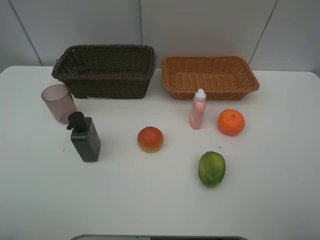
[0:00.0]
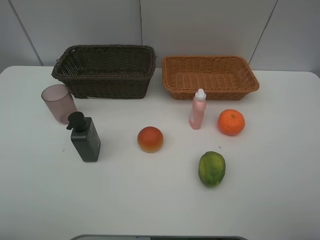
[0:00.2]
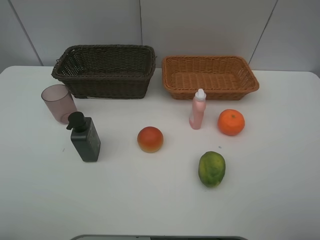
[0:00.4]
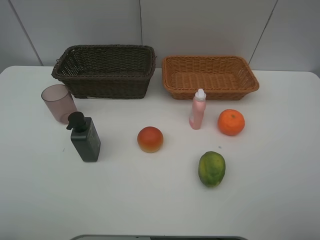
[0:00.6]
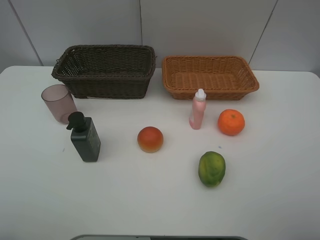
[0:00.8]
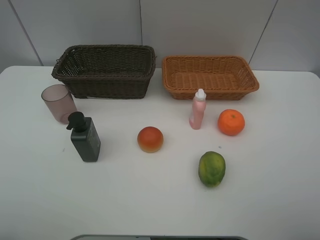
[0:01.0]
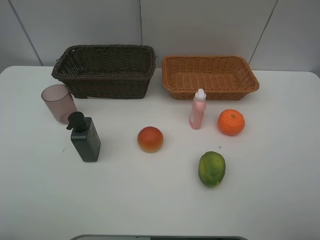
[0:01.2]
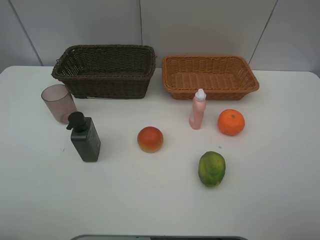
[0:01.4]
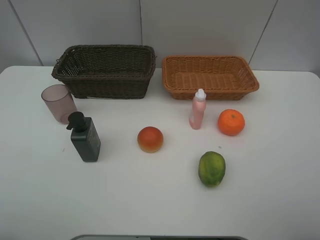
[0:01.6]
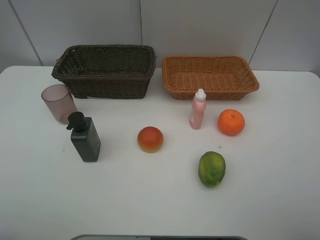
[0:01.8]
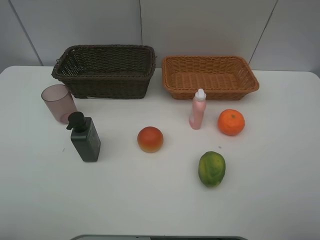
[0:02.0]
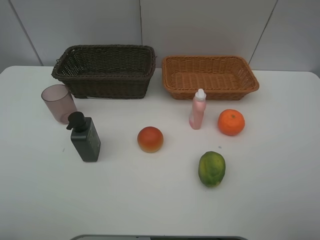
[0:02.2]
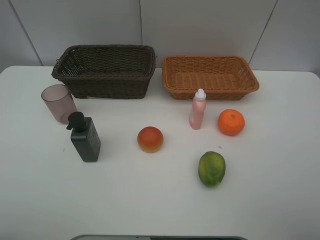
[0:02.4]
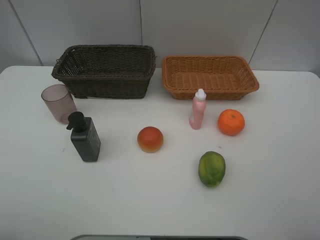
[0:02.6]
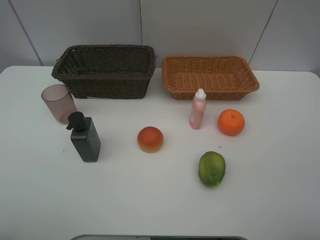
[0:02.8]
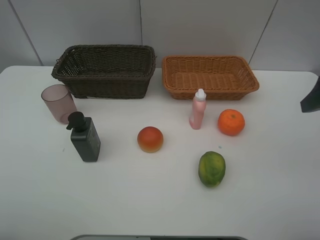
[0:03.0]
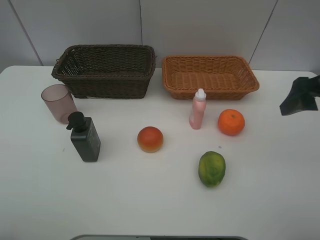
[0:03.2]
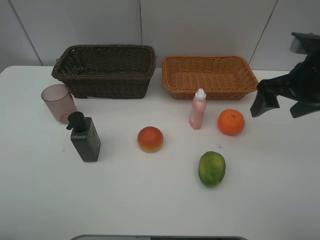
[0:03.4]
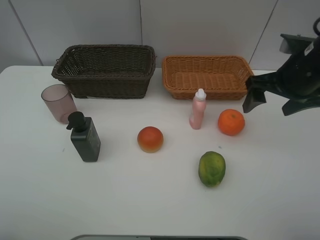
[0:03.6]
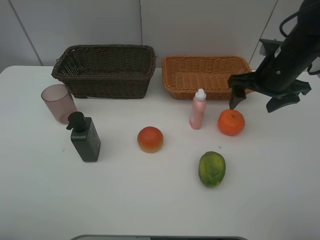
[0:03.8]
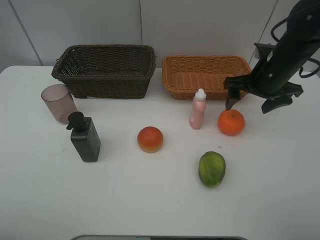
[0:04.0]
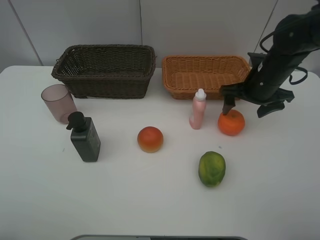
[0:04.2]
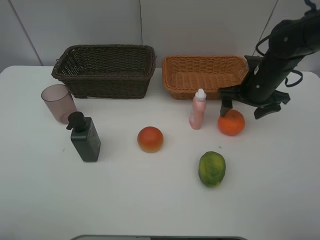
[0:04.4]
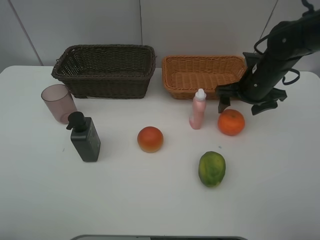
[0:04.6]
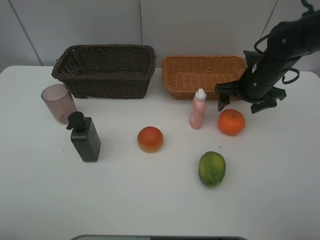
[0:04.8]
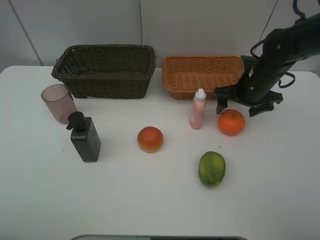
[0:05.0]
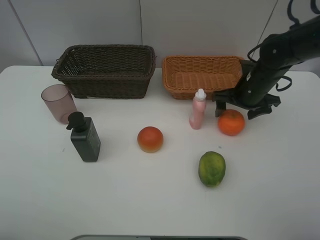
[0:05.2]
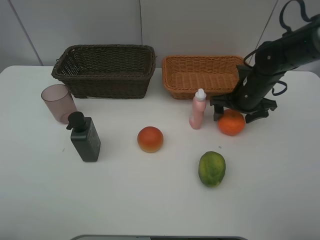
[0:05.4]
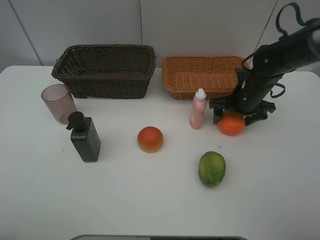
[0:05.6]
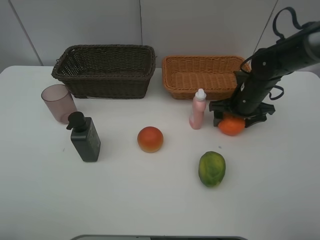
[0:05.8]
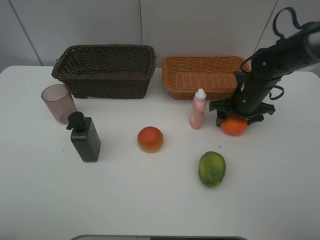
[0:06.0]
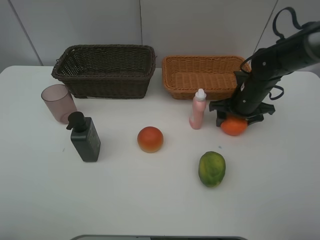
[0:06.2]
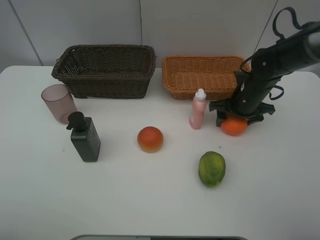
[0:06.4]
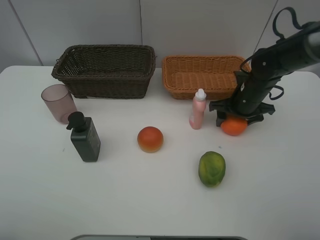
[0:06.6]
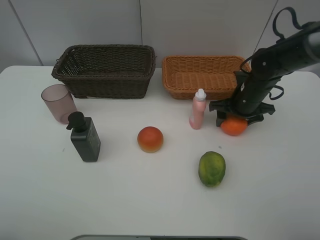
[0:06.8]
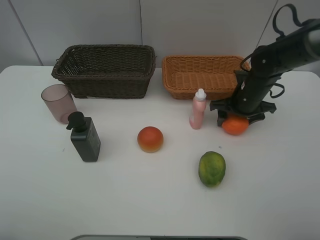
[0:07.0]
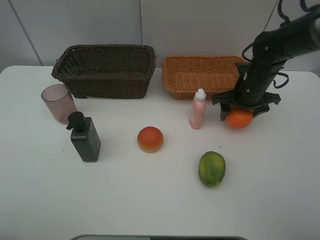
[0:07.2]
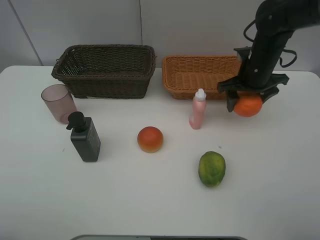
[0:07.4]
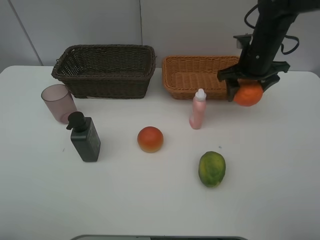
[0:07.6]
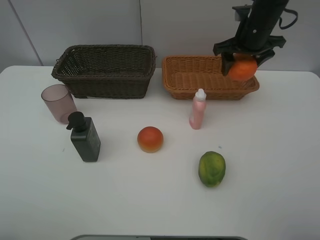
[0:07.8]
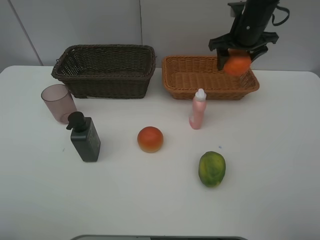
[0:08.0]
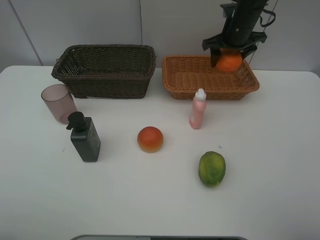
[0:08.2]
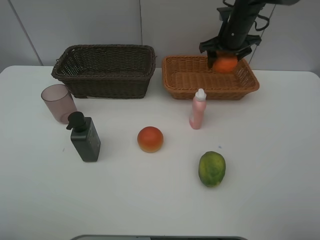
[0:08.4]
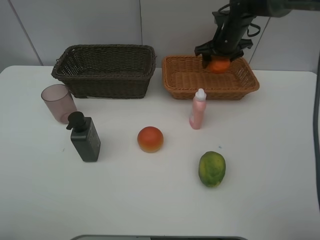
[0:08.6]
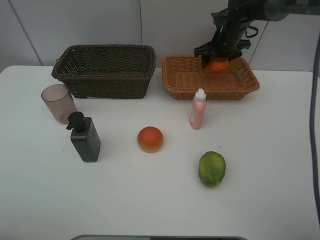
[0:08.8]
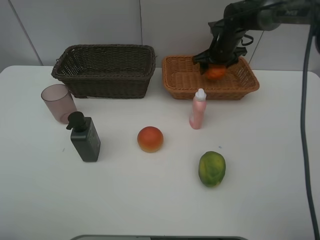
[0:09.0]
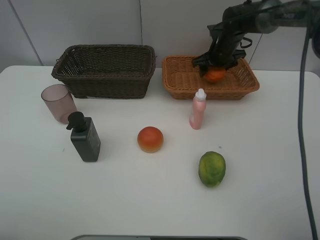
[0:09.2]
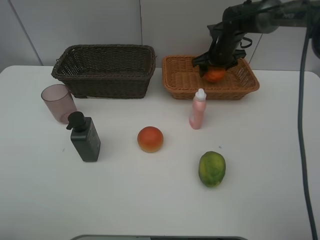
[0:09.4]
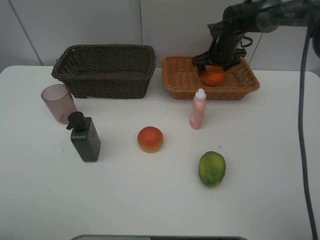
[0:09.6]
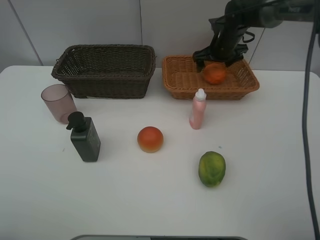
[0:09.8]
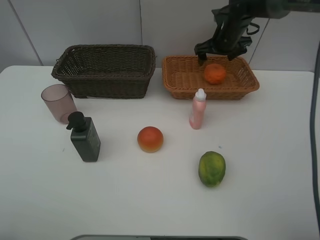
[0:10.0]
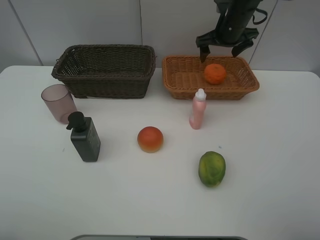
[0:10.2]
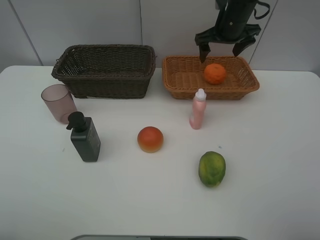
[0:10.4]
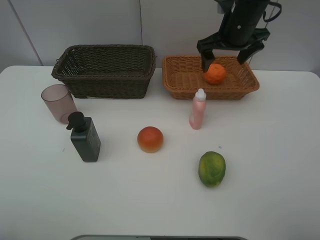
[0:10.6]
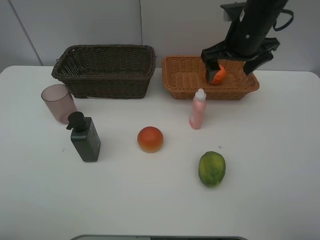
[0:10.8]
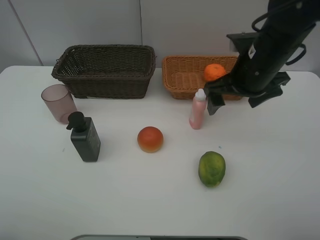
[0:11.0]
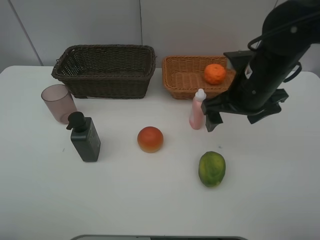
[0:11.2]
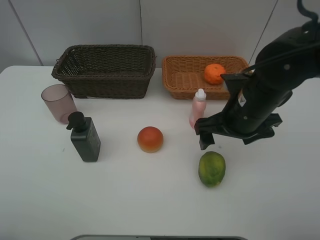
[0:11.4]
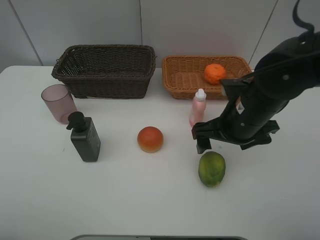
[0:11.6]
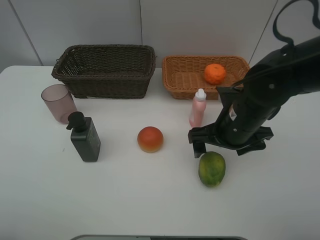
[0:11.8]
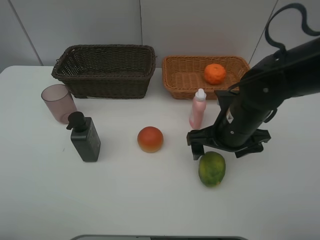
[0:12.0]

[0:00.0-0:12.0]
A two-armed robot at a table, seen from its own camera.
Task of the whole recording: place multiple objects separately in different baskets.
0:00.0 to 0:01.6: Both grippers stay about where they are.
0:03.0 to 0:04.4: The right gripper goes roughly 20 cm forward, downward and to the left.
0:04.4 to 0:06.0: The right gripper is displaced downward by some 5 cm.
0:06.0 to 0:07.6: The right gripper goes some 10 cm upward.
0:07.6 to 0:09.0: The right gripper shifts approximately 15 cm forward and downward.
0:09.0 to 0:10.4: The right gripper heads upward, covering roughly 10 cm, and opens its fingers.
0:10.4 to 0:12.0: The right gripper moves backward and downward, some 25 cm.

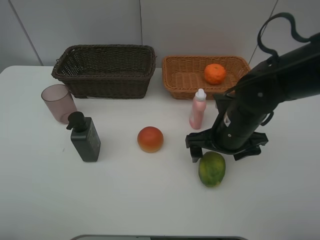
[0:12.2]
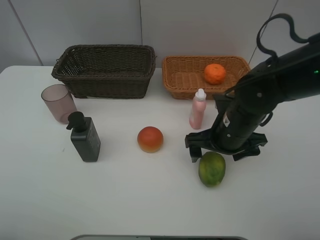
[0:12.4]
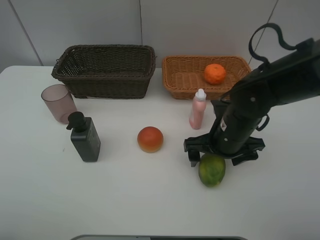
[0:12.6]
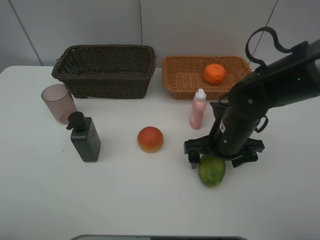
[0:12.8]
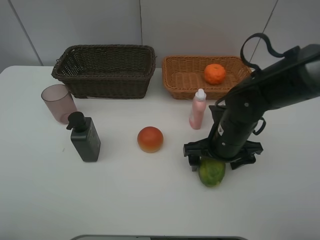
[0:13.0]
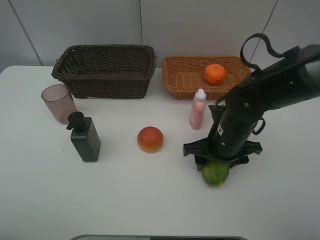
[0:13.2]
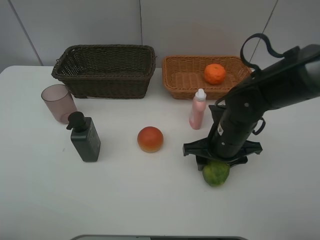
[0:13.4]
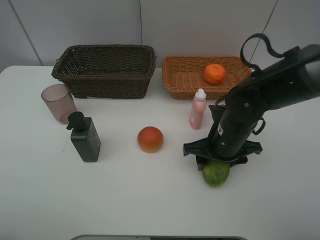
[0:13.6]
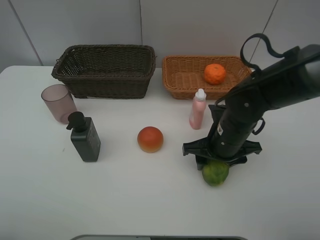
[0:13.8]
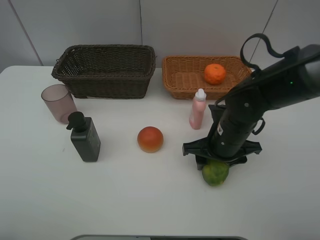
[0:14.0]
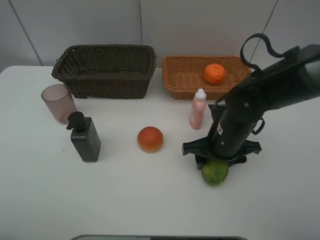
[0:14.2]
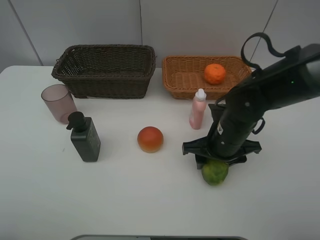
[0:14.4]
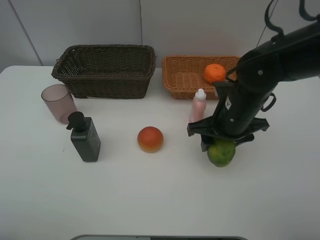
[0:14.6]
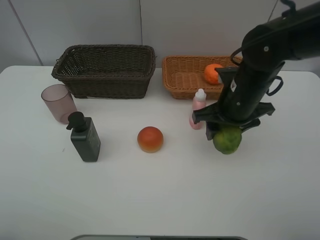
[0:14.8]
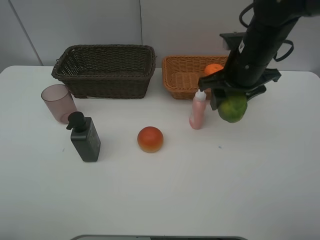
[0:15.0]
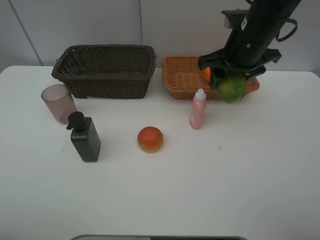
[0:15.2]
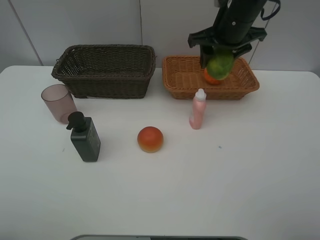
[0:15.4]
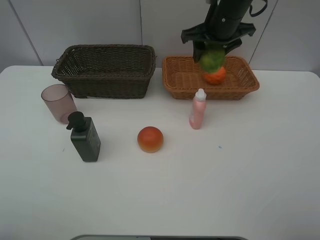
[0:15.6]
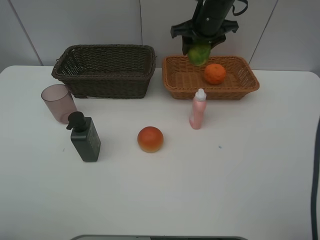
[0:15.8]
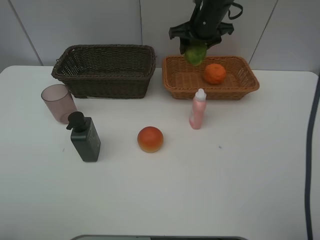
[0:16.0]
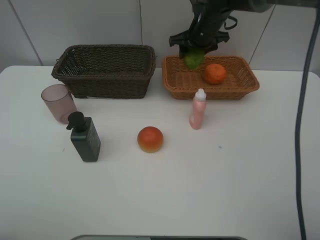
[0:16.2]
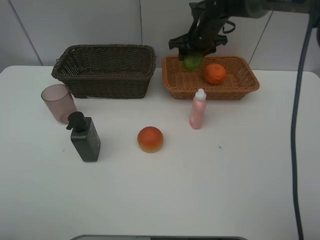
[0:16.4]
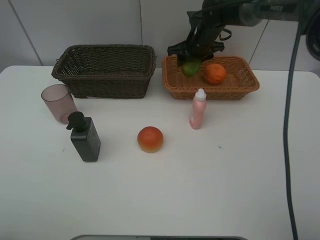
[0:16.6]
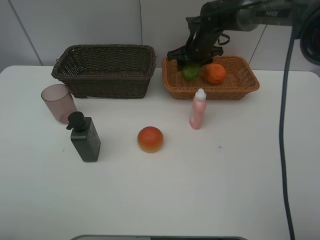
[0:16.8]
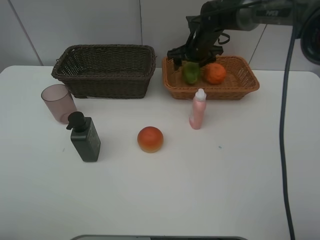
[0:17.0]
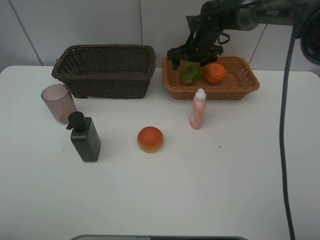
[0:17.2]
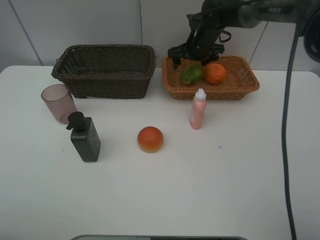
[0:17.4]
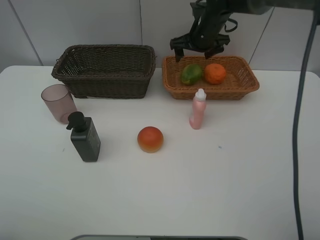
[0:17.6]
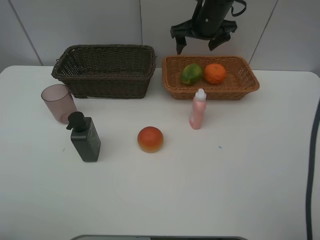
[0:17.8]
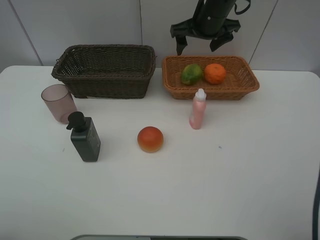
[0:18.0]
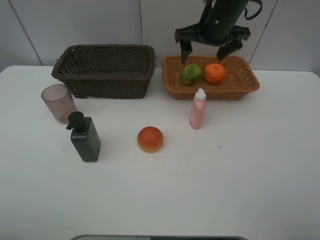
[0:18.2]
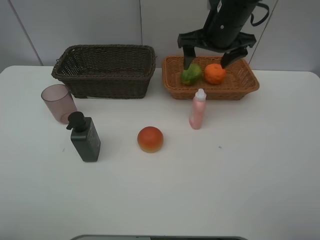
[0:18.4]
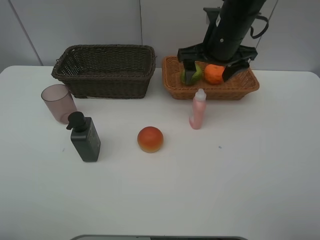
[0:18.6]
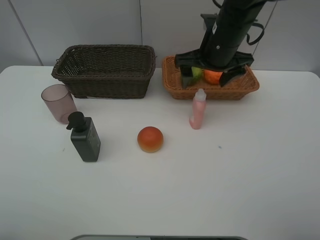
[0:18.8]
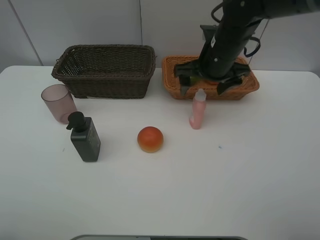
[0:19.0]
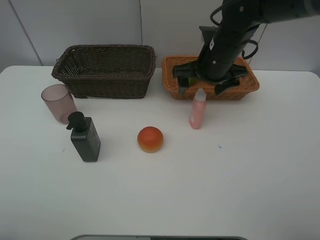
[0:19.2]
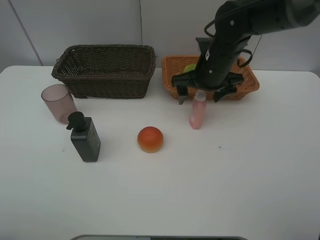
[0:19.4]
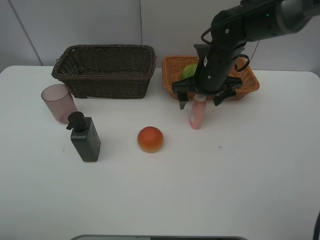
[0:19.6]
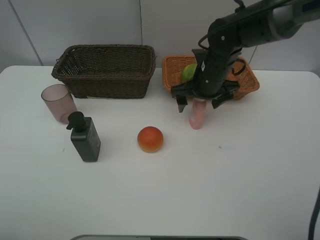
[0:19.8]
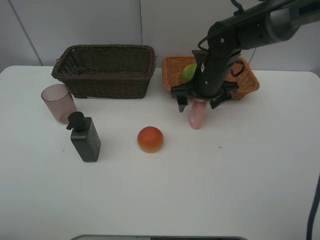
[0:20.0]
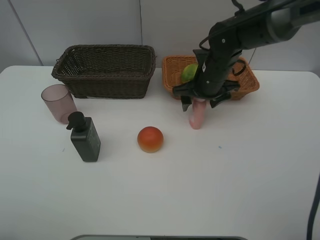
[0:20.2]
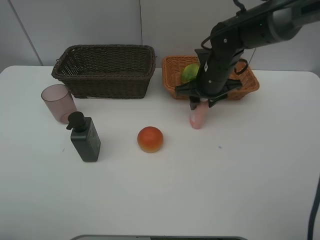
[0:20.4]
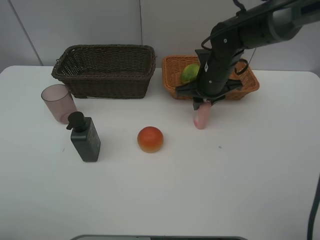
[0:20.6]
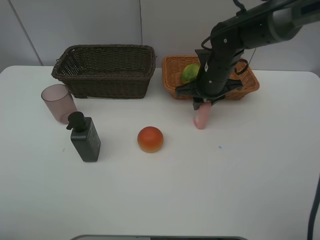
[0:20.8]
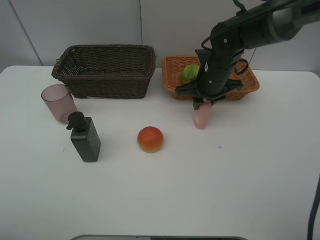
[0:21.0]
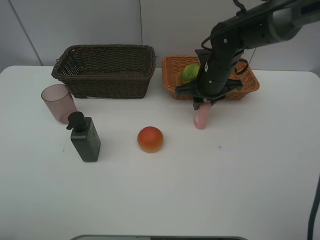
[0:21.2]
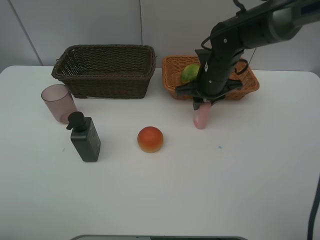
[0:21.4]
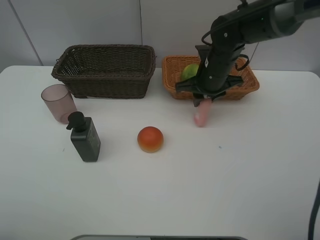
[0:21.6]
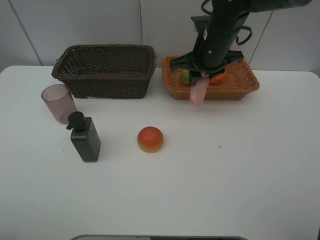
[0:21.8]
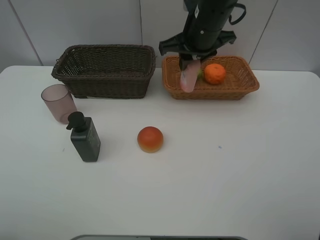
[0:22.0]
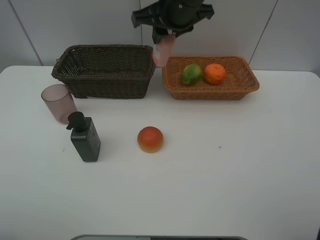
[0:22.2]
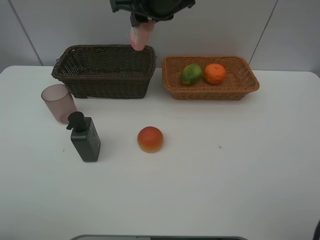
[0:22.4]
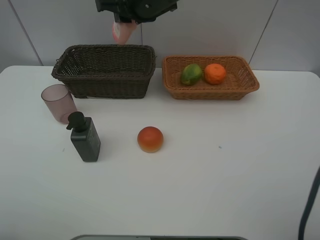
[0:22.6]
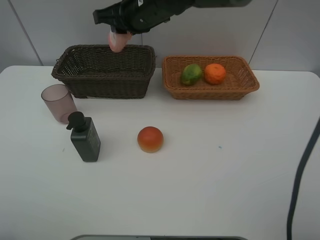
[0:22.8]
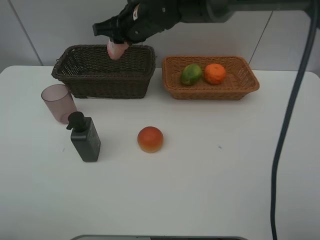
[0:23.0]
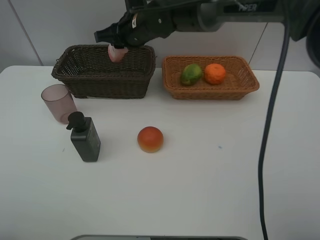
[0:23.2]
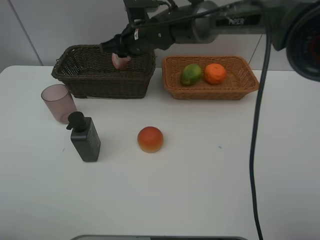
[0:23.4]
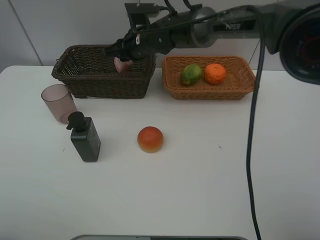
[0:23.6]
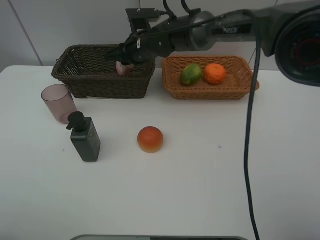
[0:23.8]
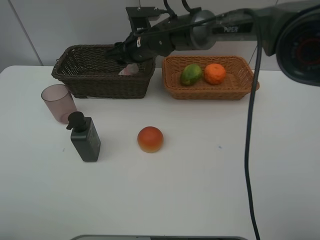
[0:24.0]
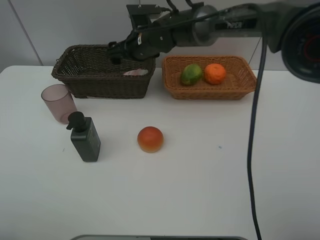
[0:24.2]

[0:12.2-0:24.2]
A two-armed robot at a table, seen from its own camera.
Task of the whole recording: place multiple objects separately in different baskets.
0:12.2 to 0:13.8: The right gripper closes up.
0:13.8 to 0:15.2: The right gripper moves upward and forward, roughly 15 cm.
0:15.2 to 0:16.6: The right gripper heads forward and downward, covering roughly 20 cm.
0:16.6 to 0:18.2: The right gripper heads backward and upward, covering approximately 15 cm, and opens up.
0:18.2 to 0:19.8: The right gripper is displaced downward by some 10 cm.
0:19.8 to 0:21.2: The right gripper closes up.
0:21.2 to 0:22.6: The right gripper goes about 20 cm to the left and upward.
0:22.6 to 0:24.2: The right gripper is displaced downward and forward by some 10 cm, and opens.
